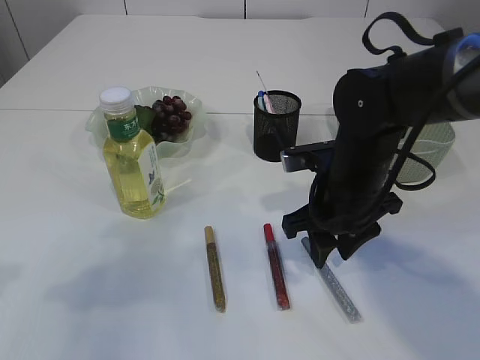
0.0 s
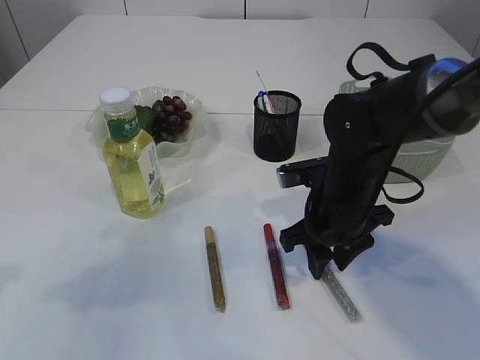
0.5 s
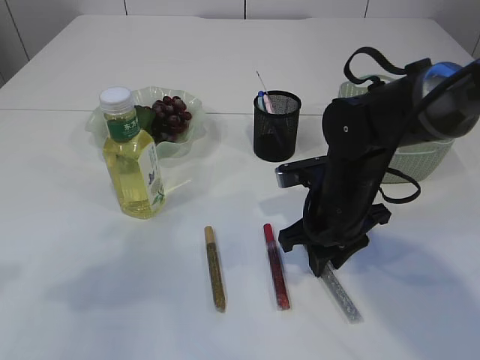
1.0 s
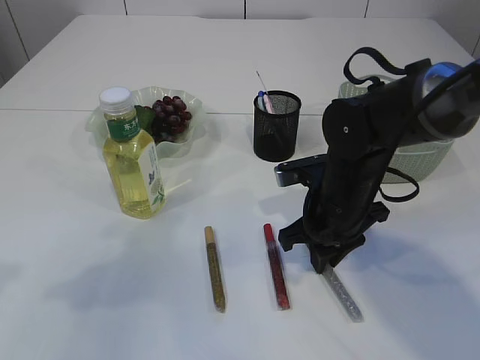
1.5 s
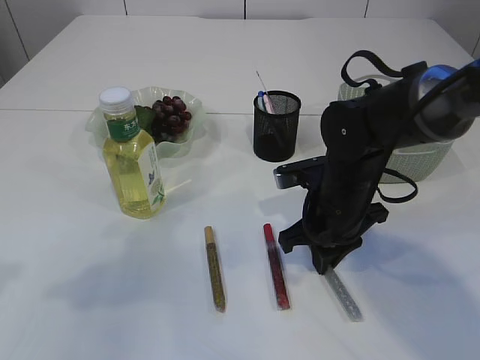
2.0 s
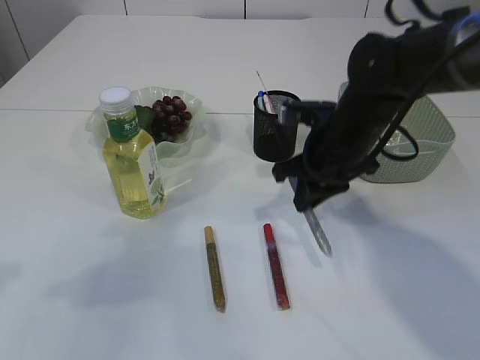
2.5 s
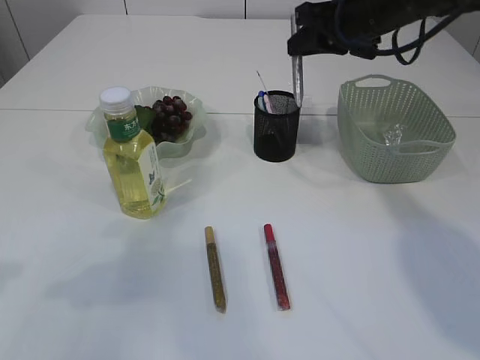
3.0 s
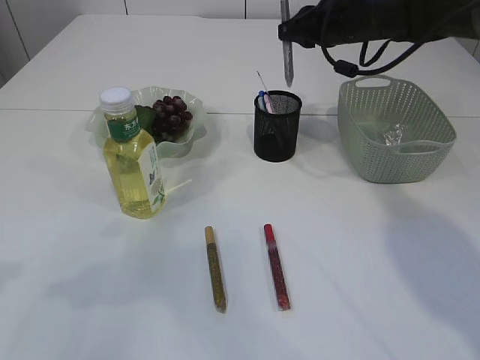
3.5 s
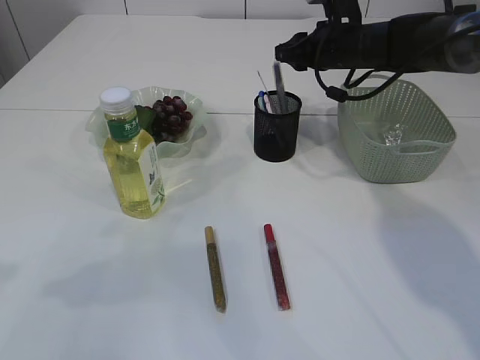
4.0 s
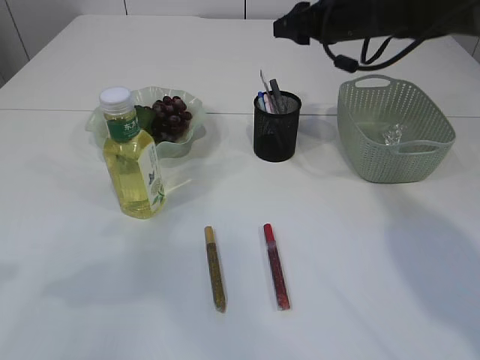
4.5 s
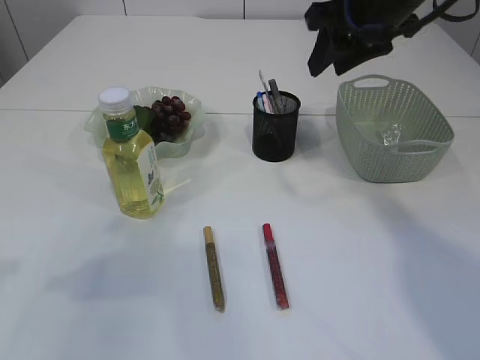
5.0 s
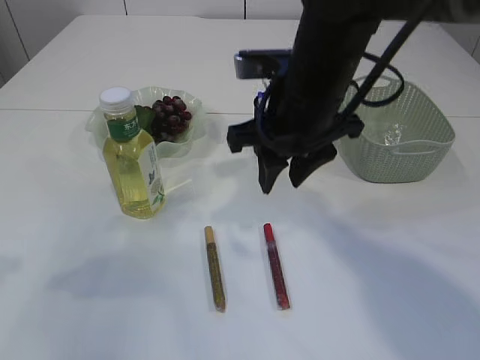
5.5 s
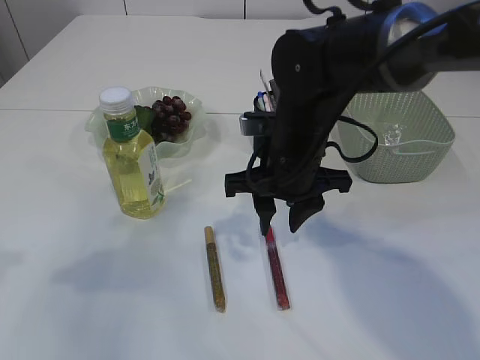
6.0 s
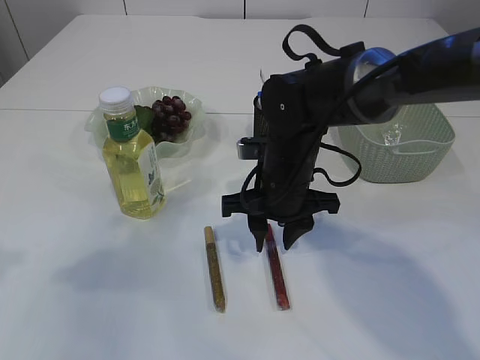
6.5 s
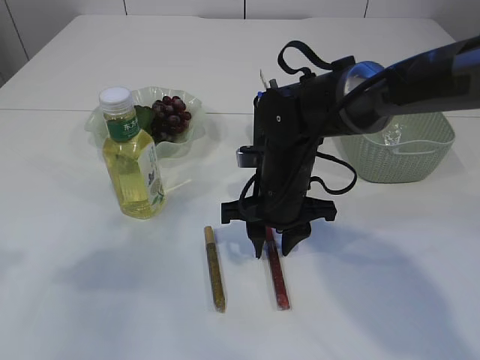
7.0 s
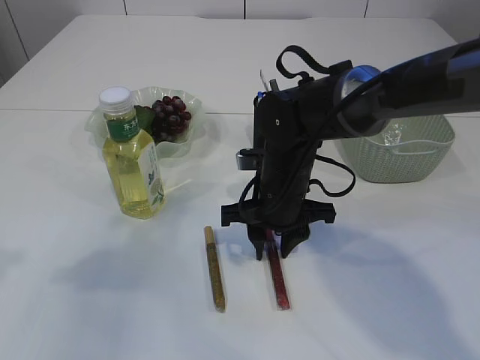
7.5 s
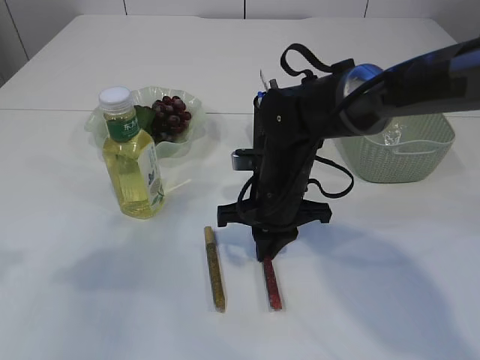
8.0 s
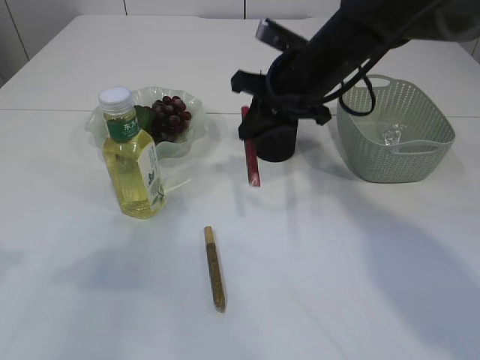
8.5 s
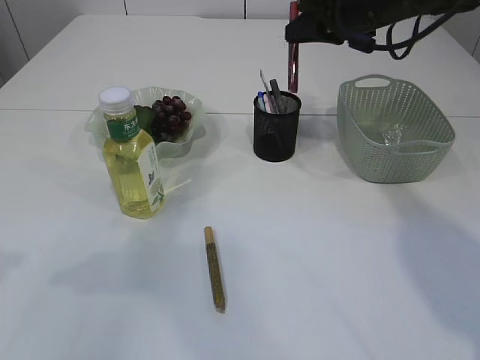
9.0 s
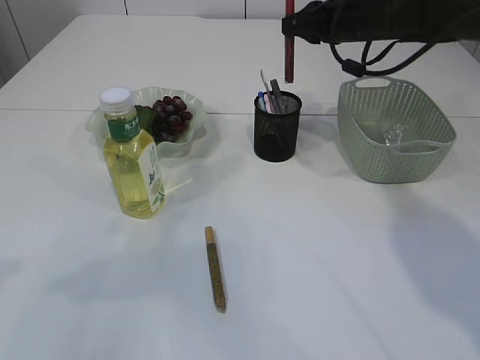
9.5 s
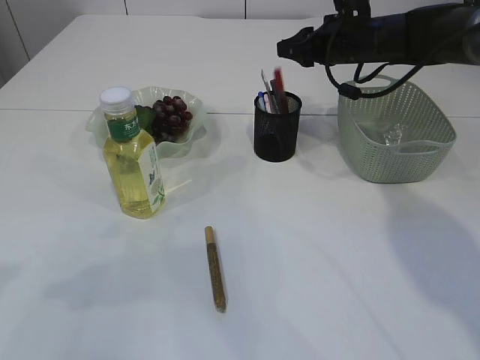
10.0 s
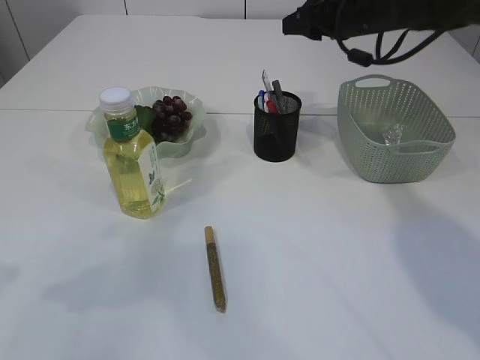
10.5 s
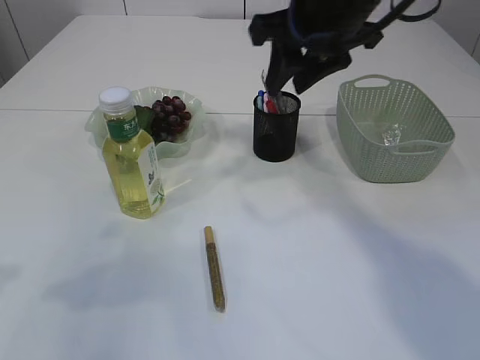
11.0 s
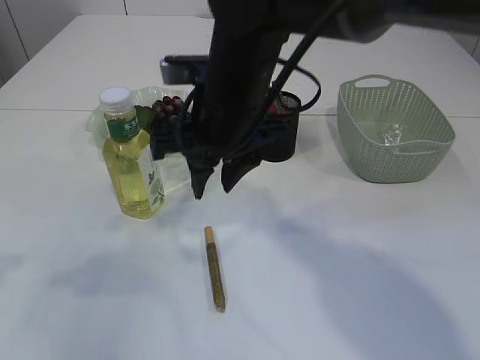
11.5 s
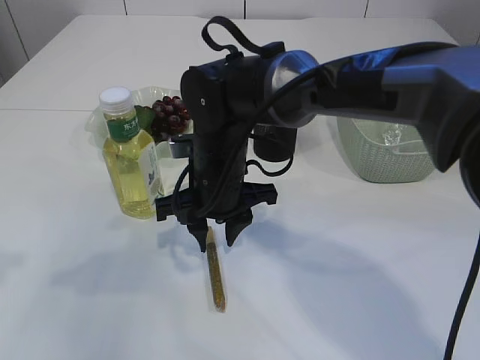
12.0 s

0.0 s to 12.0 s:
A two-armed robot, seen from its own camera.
Step, 0.0 to 2.5 s: pick up the silver glue.
Step, 3.0 to 4.5 s: place the silver glue into the pen holder.
Step, 5.0 to 8.0 s: pick up the red glue.
Step, 8.5 to 10.0 s: place the red glue into the pen holder.
0.0 to 2.0 s: The right gripper closes its fingers.
2.0 to 4.0 s: The right gripper moves forward and upward, some 20 cm.
4.0 to 6.0 s: The right gripper moves backward and to the left, approximately 20 cm.
6.0 to 8.0 s: The right gripper travels downward by about 5 cm, and closes its fingers.
8.0 to 10.0 s: The right gripper shifts approximately 25 cm forward, to the right and upward, and opens its fingers.
10.0 to 12.0 s: The right gripper shifts roughly 25 cm to the left and backward.

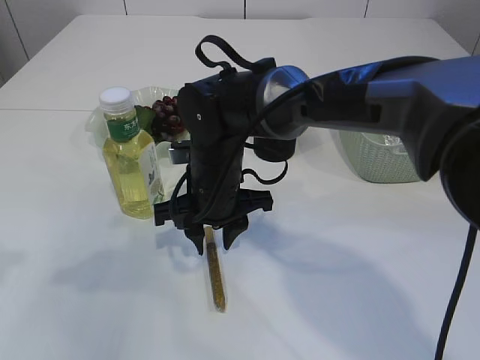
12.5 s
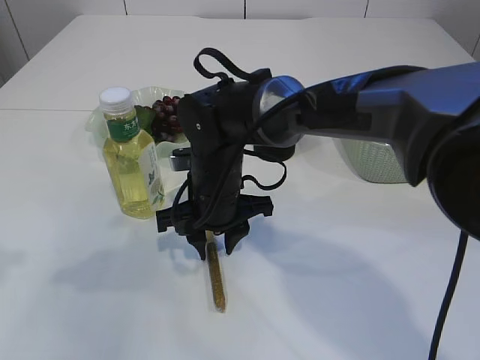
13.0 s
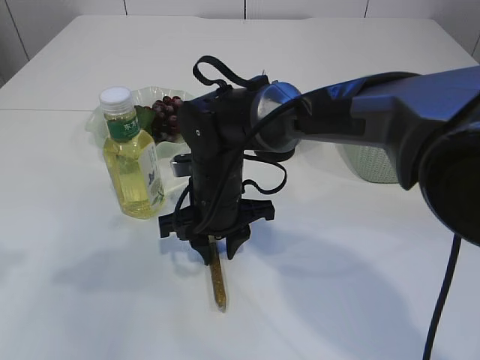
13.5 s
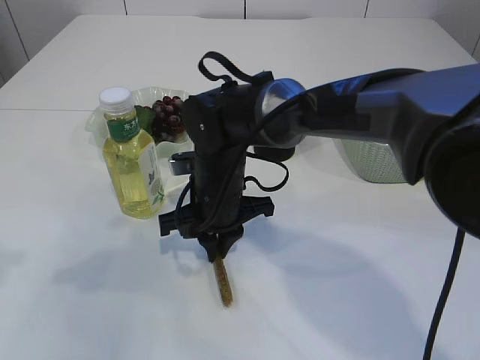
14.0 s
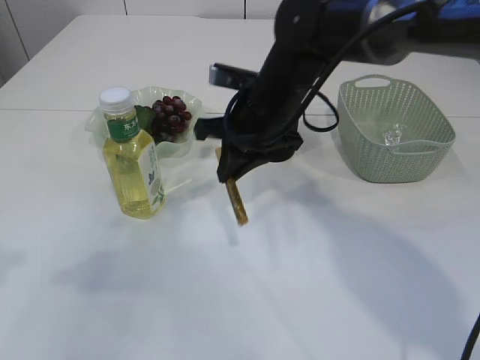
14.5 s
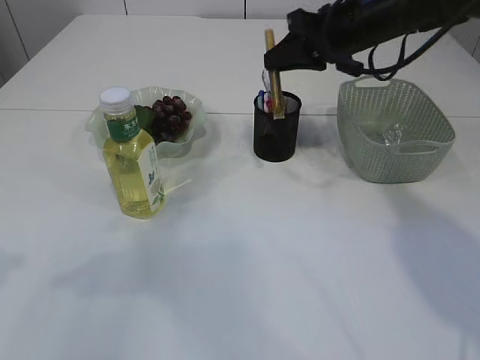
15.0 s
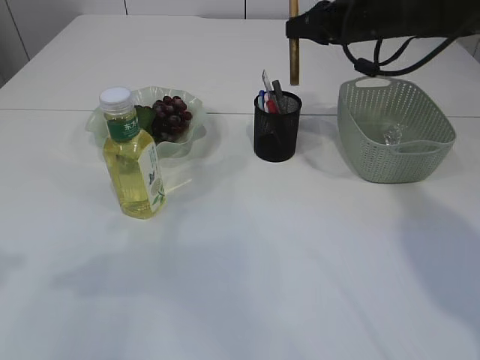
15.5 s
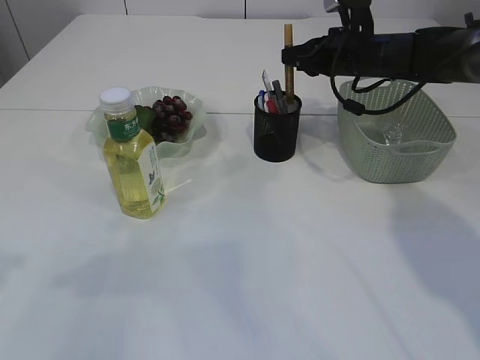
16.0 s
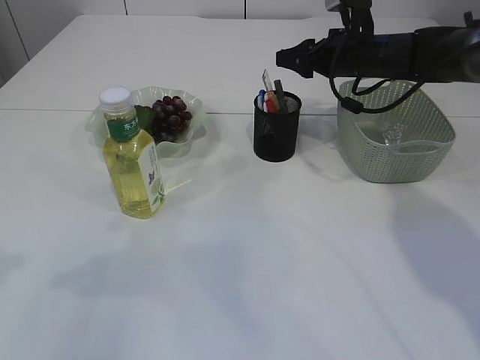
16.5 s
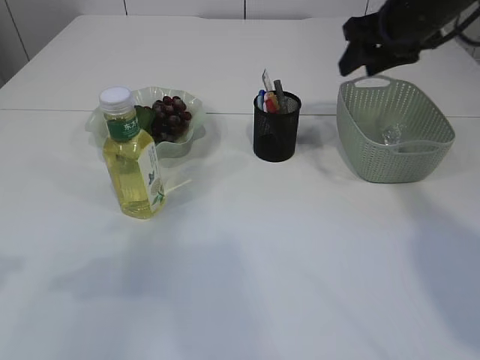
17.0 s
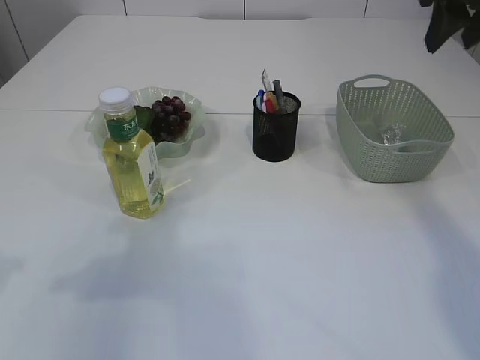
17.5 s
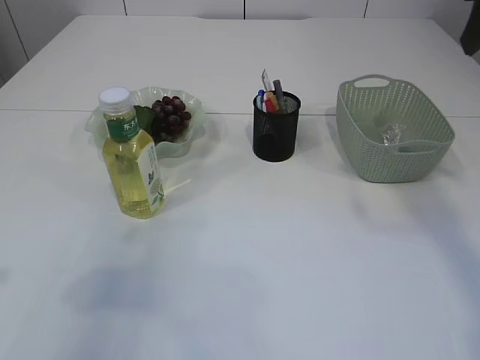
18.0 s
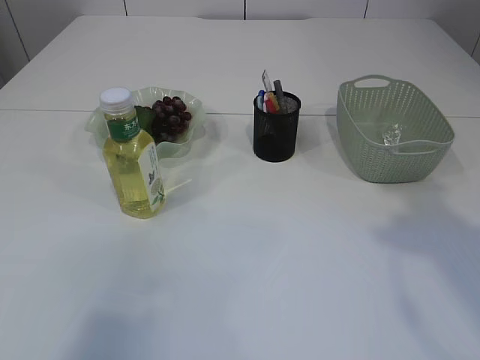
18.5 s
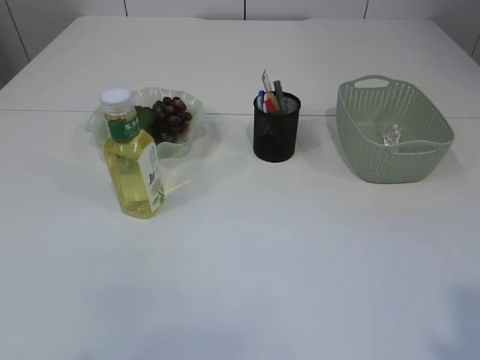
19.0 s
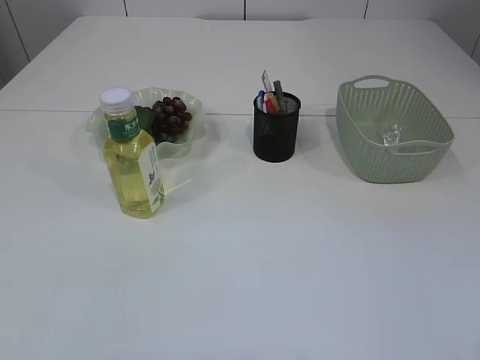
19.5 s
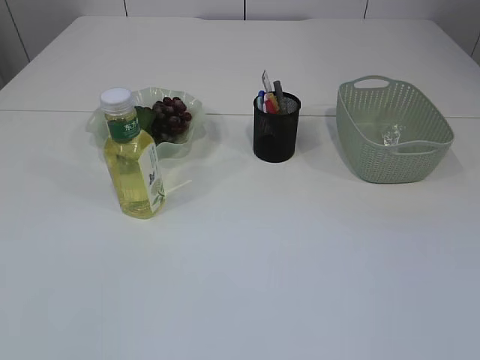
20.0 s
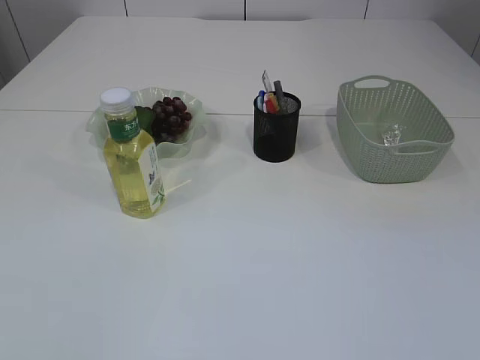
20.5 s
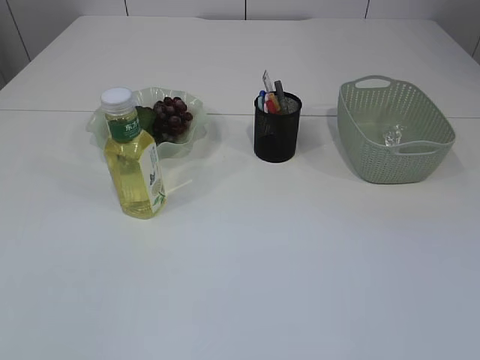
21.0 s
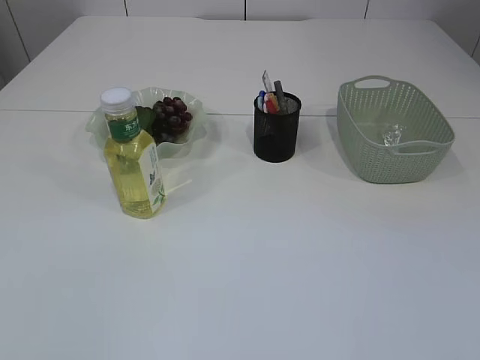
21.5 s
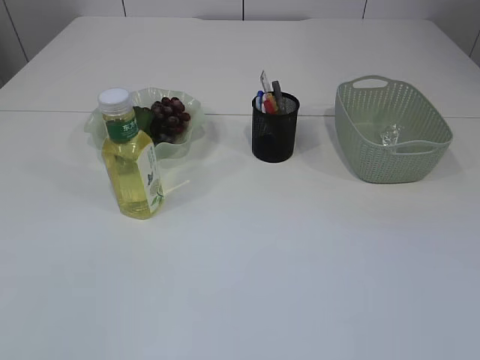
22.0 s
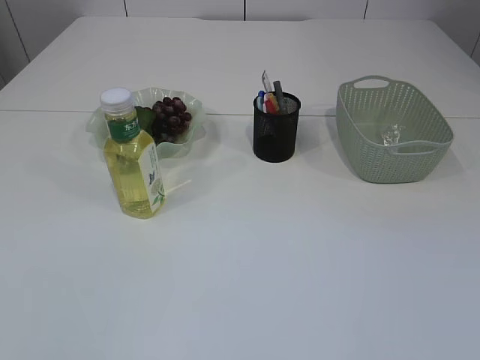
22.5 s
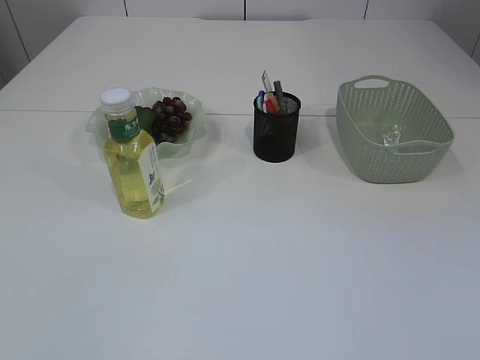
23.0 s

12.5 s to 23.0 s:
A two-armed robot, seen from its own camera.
Step, 14.5 to 16.5 s: place the yellow glue into the pen holder.
12.5 to 14.5 s: The right gripper goes roughly 10 cm to the right and upward, and closes.
14.5 to 16.5 s: The right gripper goes some 20 cm to the right and forward, and opens.
16.5 to 19.0 s: The left gripper heads backward and upward, covering roughly 20 cm, and opens its fingers, while the right gripper shifts about 50 cm backward.
19.0 to 21.0 s: The right gripper moves downward and backward, roughly 15 cm.
21.0 to 23.0 s: Both grippers stay put.

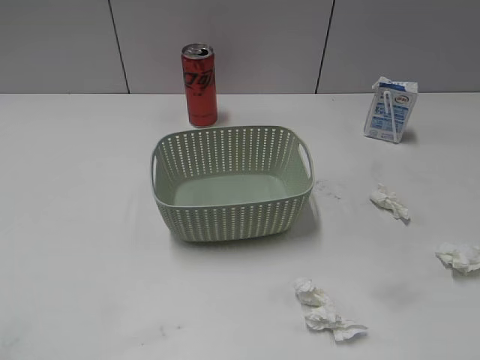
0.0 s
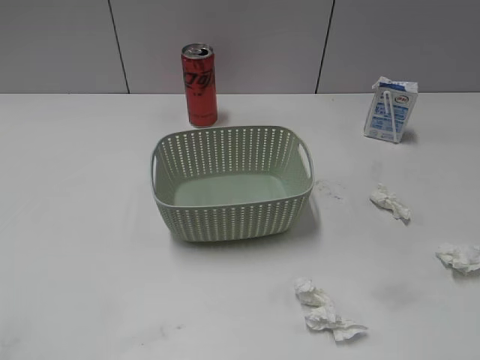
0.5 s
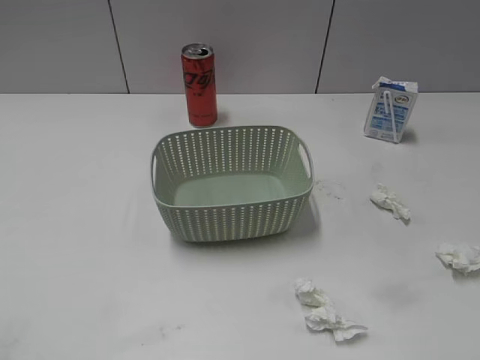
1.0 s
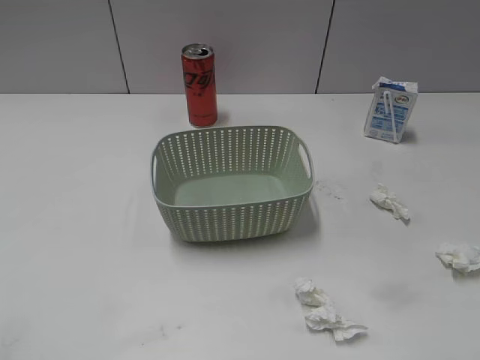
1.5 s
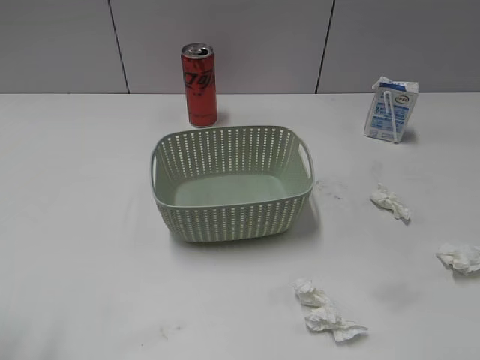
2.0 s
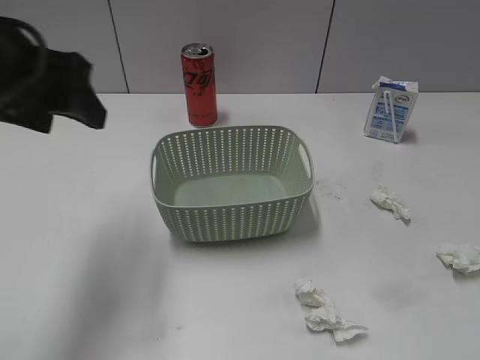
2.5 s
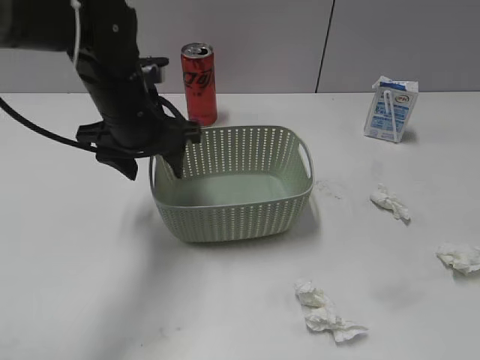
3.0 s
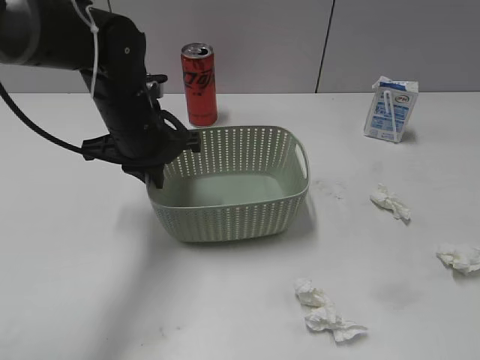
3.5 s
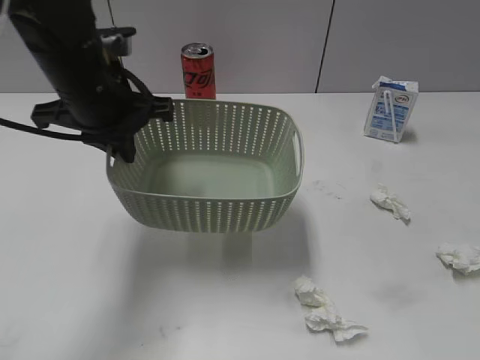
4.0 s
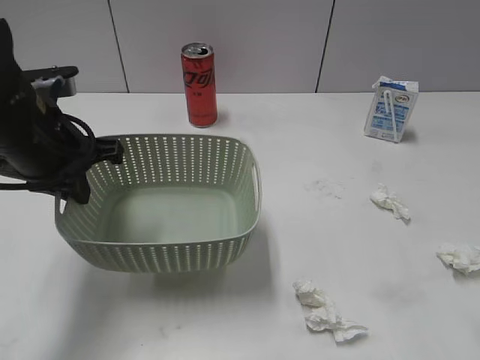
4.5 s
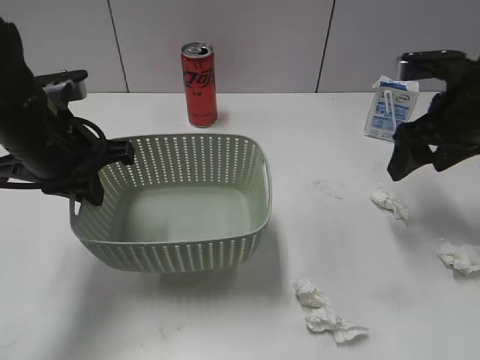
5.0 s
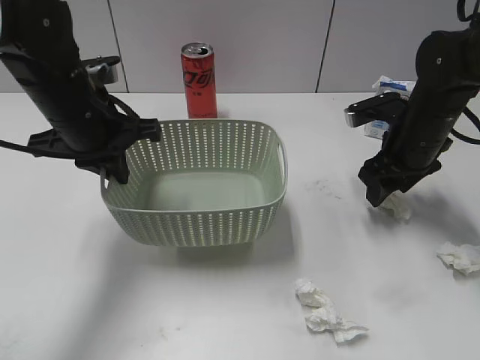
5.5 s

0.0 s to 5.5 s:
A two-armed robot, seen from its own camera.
Step, 2.5 to 3.5 s: Grasp the basket with left gripper.
2.0 to 3.5 s: The left gripper goes some 35 cm forward, to the right and downward, and closes up.
3.5 to 5.5 s: The right gripper heads forward, covering about 40 cm.
